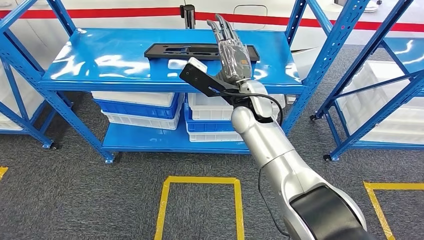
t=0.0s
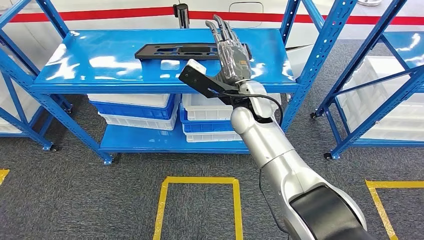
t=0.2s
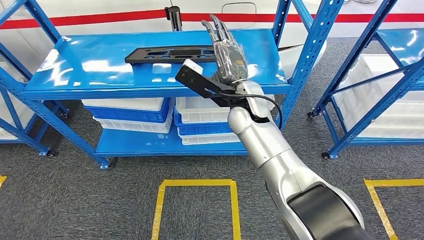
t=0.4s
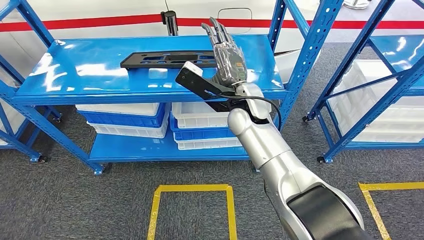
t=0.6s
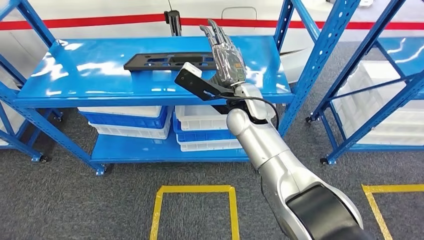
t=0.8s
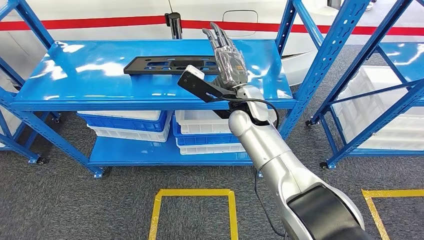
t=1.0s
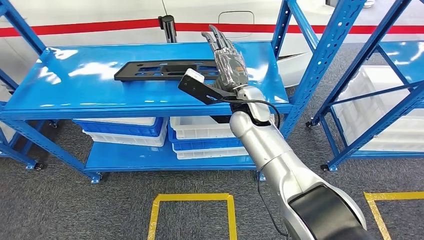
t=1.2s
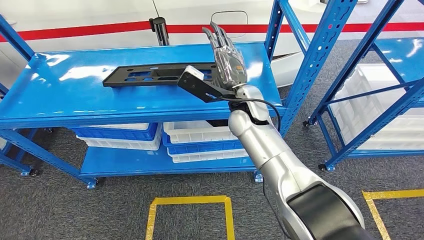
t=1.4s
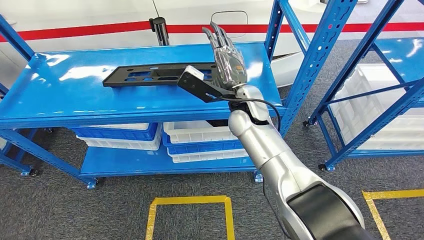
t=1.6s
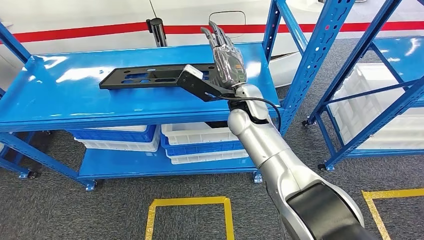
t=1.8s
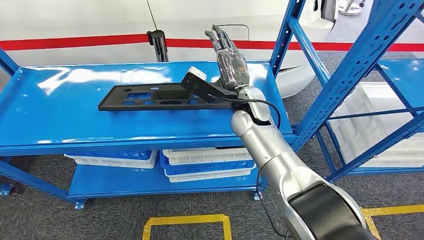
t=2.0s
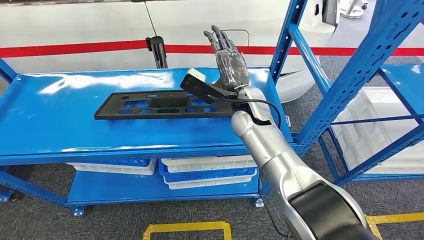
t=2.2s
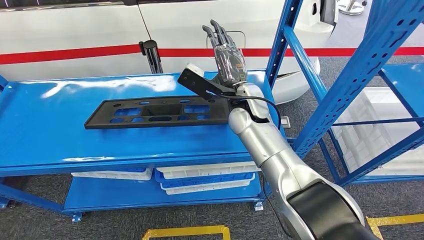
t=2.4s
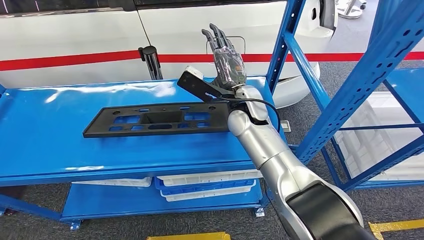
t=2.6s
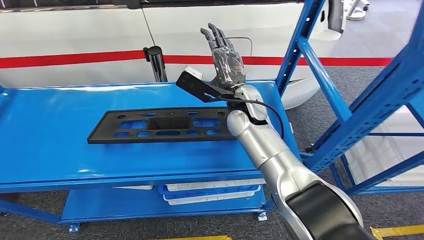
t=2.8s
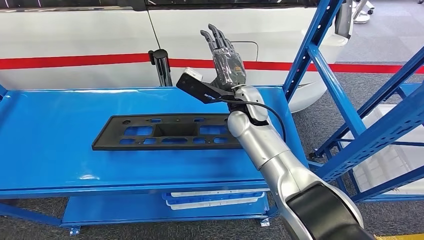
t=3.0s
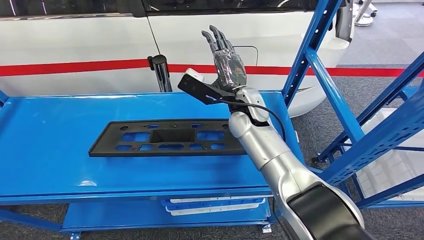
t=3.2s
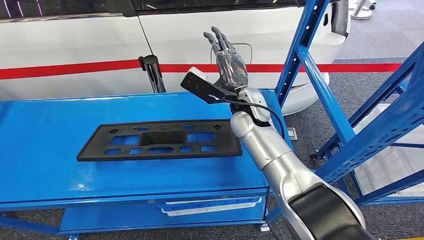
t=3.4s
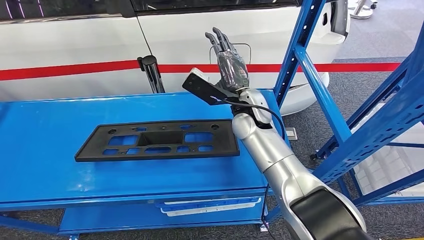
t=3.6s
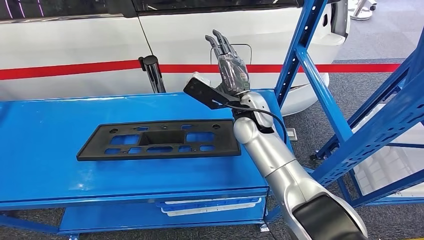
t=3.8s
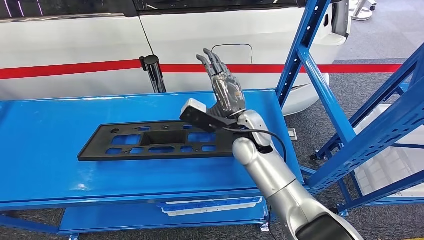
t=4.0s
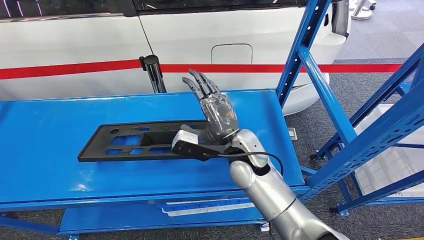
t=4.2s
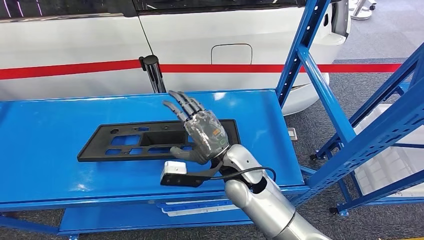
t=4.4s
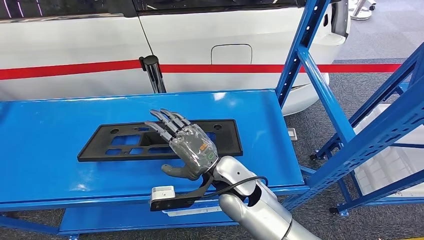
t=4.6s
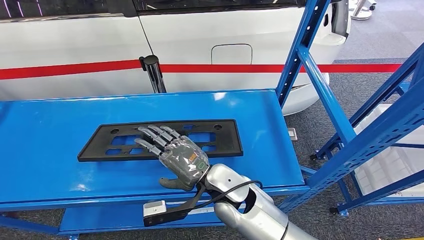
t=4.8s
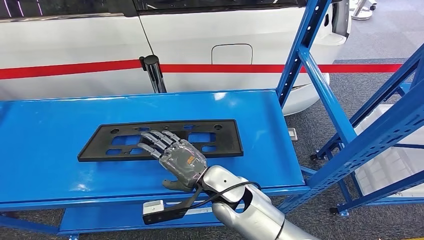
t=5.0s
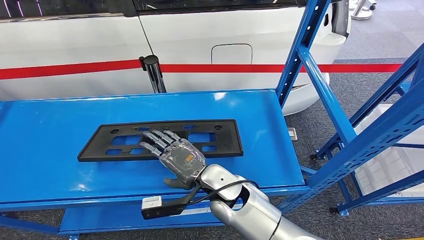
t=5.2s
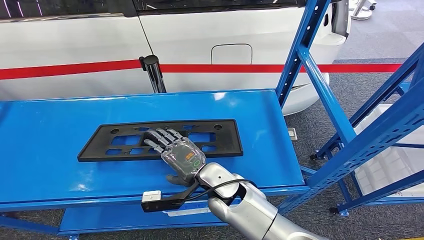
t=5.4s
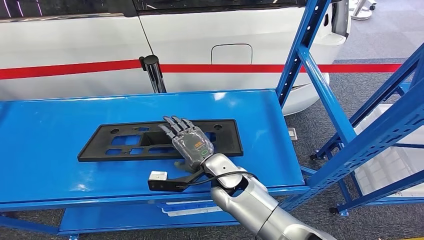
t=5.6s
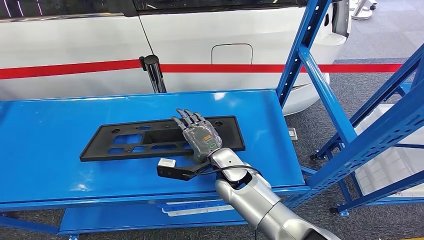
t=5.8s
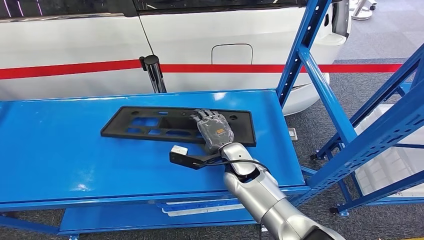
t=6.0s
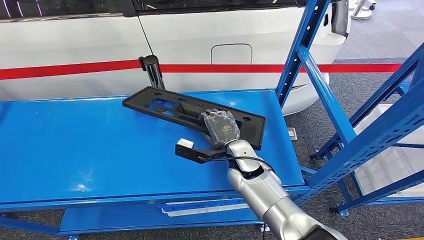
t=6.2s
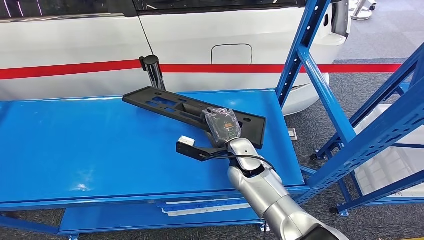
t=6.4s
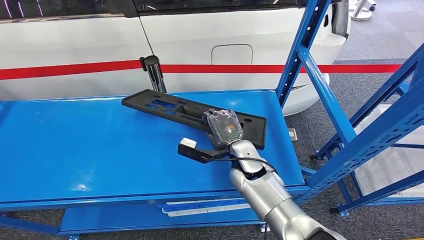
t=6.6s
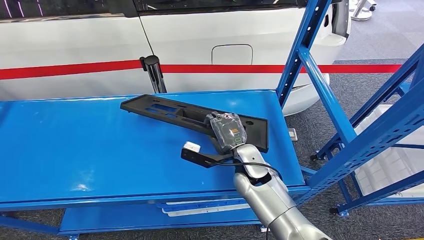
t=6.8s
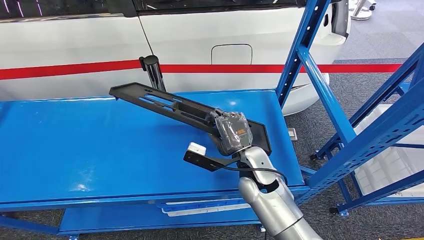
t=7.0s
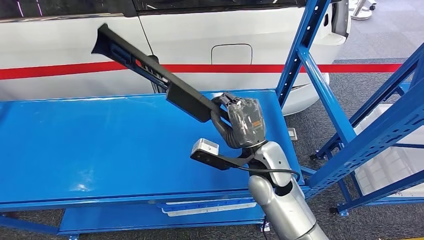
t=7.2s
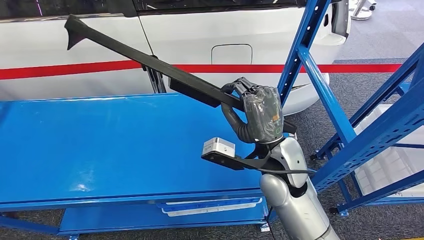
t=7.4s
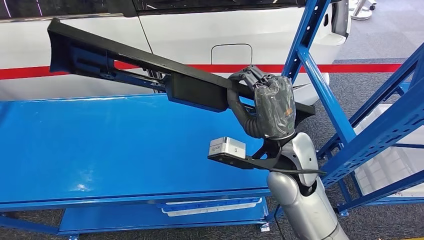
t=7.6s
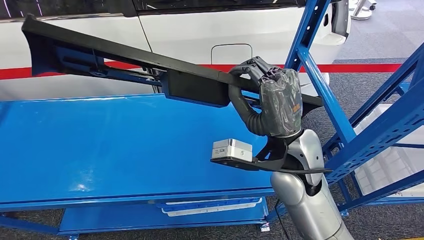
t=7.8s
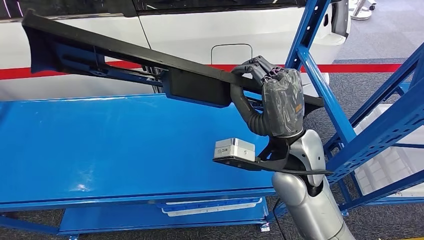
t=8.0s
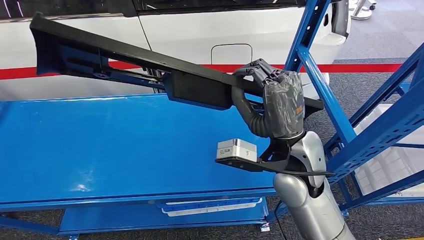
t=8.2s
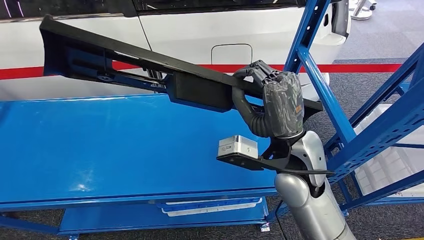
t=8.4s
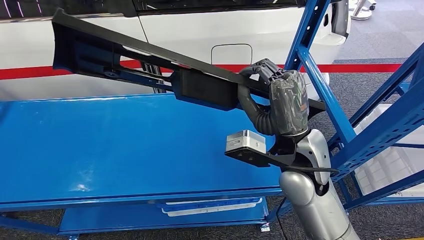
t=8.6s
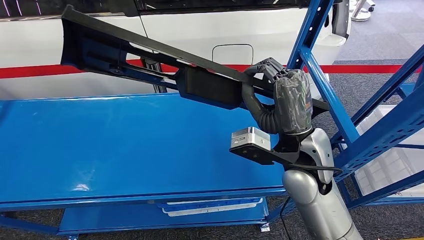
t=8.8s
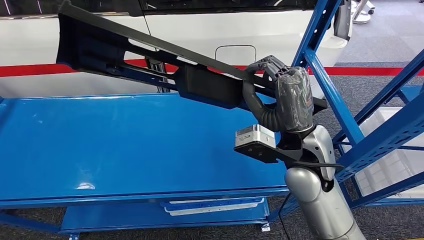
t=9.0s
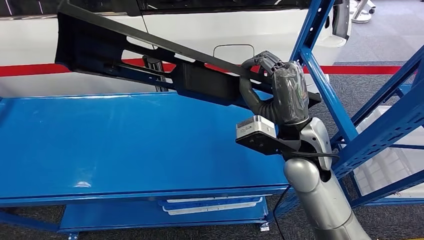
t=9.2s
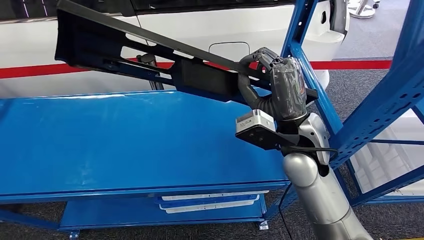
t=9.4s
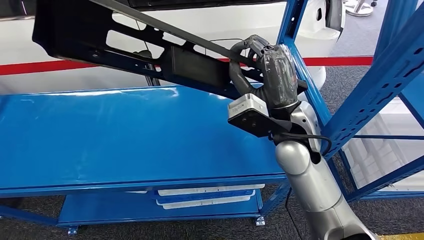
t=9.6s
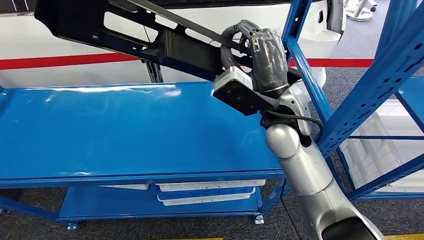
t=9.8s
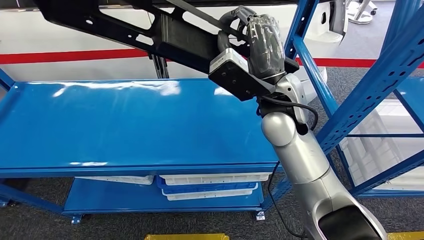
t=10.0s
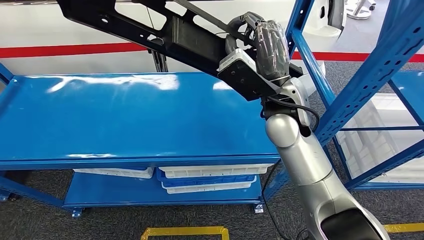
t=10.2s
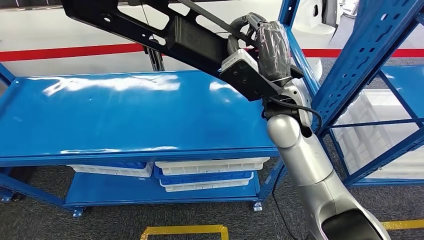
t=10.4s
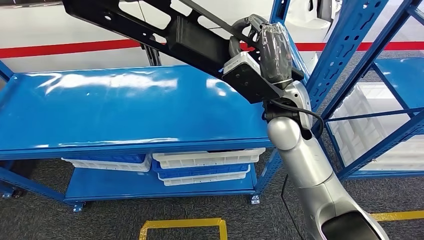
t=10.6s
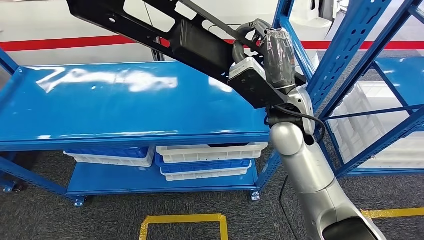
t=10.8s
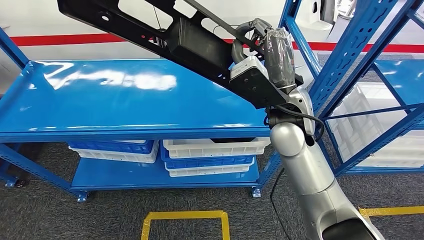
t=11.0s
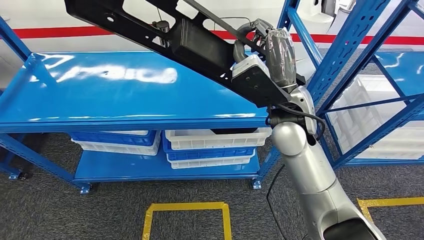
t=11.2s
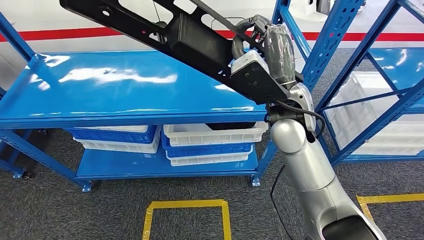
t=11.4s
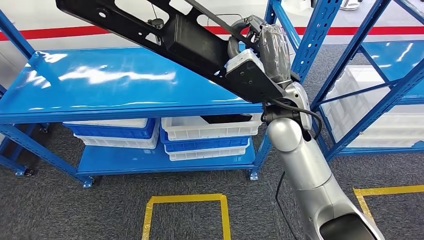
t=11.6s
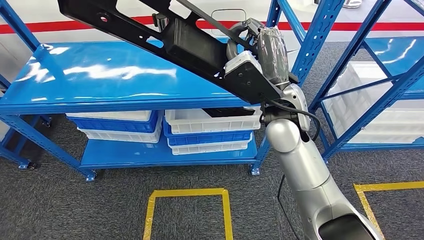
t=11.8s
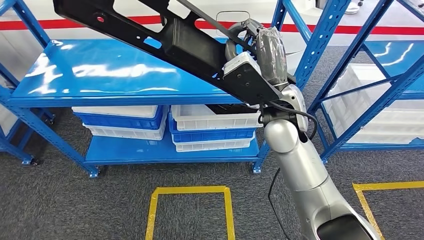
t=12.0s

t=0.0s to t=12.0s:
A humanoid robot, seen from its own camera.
Step, t=0.0s to t=11.4s: Pick up the large material from the shelf.
t=4.4s to t=6.0s: The right hand shifts about 5 cm downward.

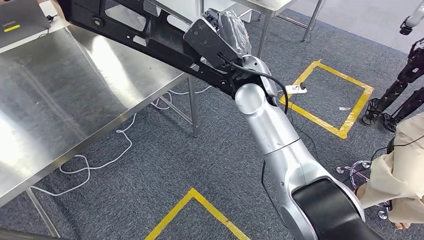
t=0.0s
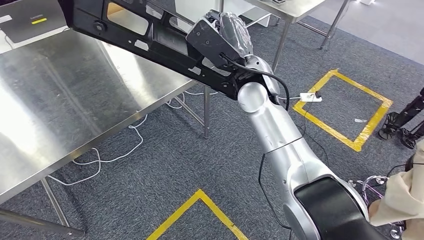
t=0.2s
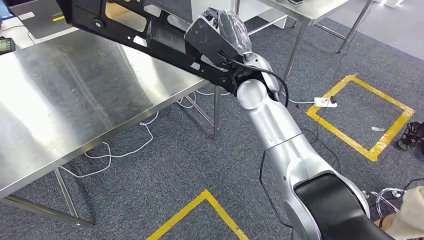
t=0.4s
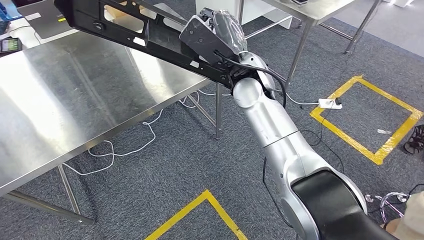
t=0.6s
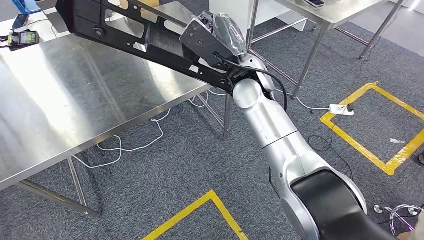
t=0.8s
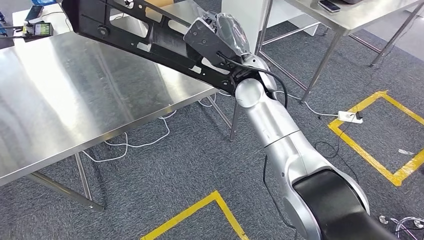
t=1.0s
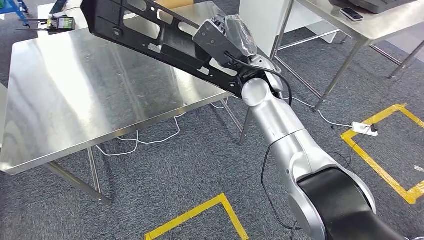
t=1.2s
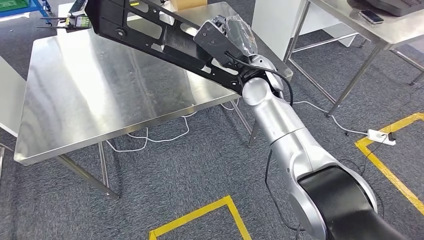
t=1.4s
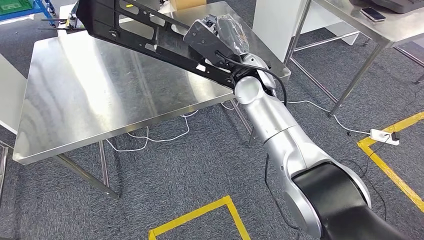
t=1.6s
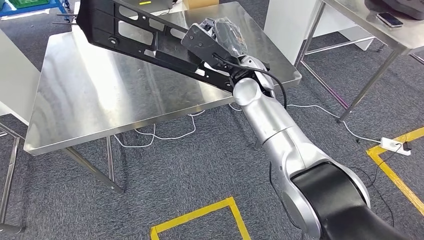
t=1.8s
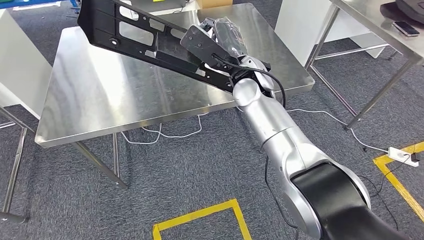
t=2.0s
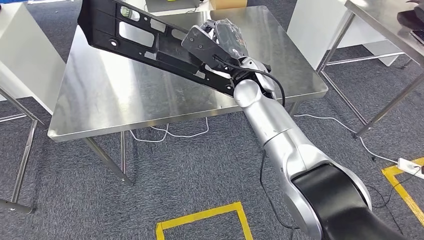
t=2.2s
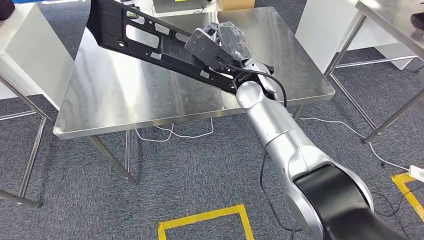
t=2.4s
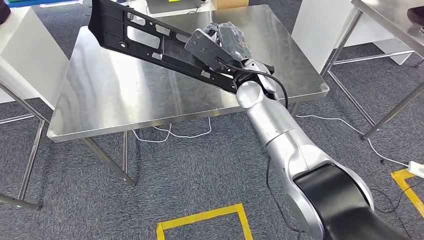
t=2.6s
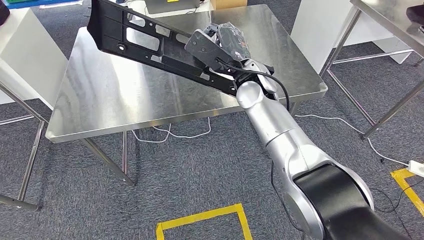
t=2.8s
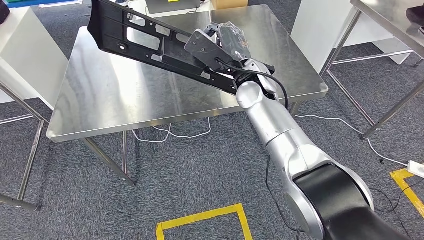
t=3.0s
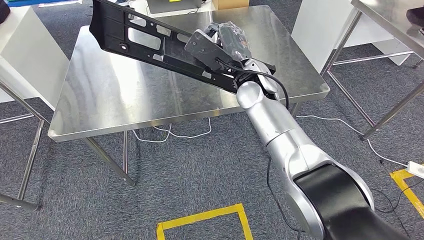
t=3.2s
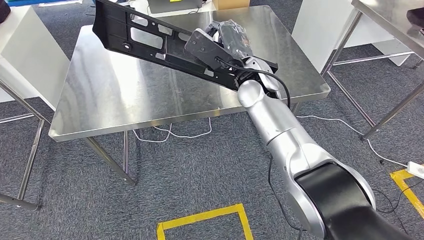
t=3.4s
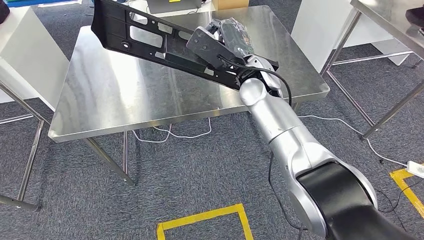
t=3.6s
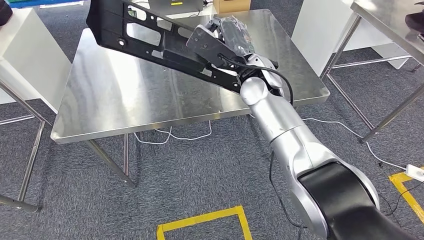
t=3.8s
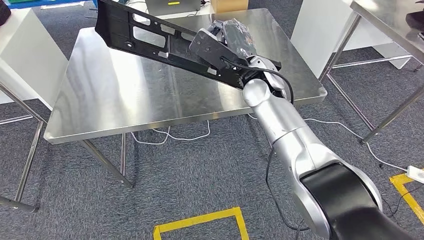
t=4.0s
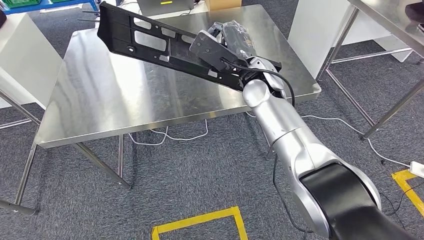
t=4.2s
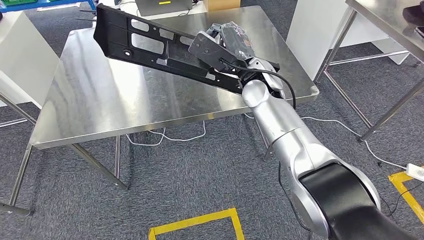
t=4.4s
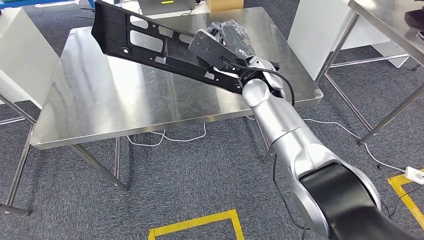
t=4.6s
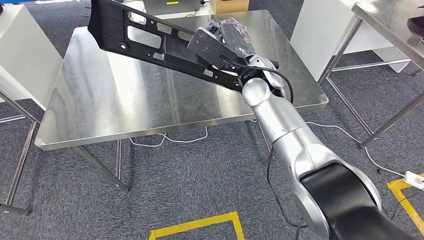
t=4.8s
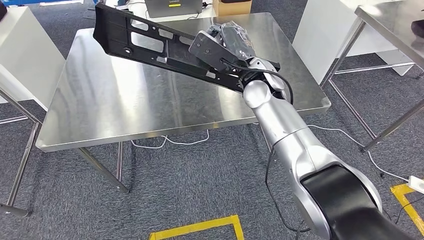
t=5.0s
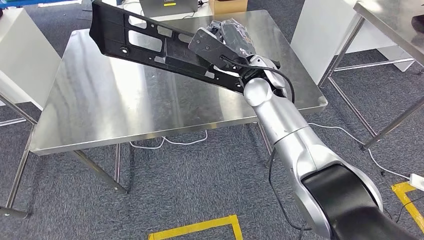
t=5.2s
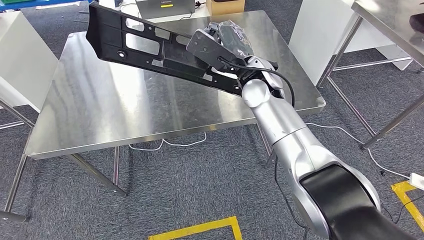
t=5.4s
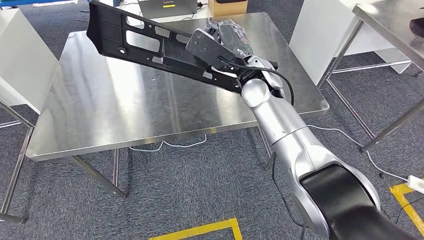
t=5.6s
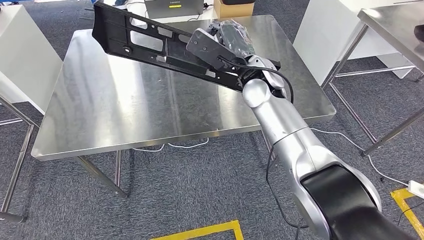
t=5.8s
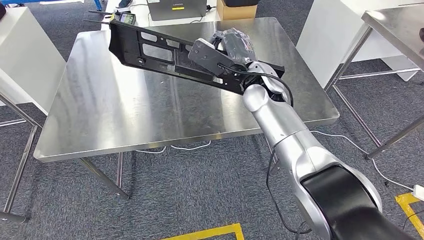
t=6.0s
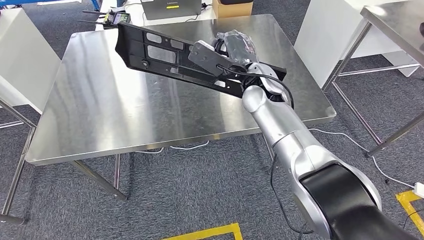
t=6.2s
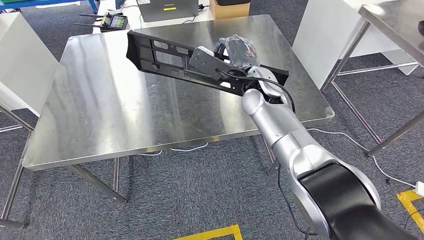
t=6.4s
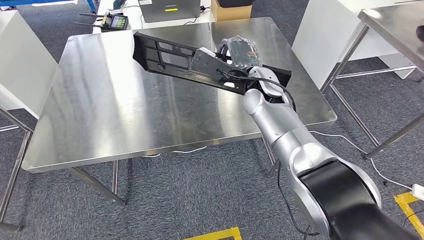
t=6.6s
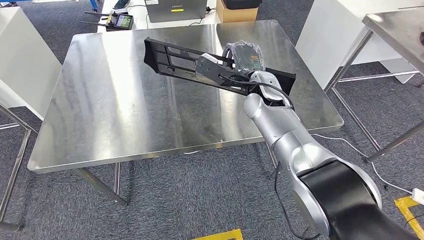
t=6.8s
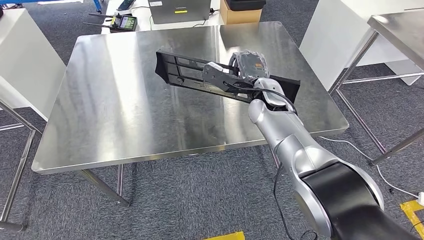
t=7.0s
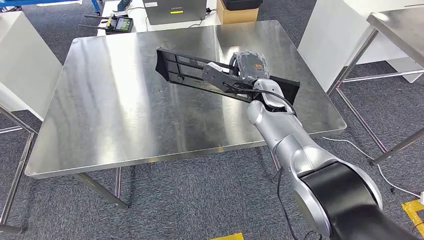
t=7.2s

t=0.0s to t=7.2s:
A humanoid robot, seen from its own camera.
Step, t=0.0s to t=3.6s: Move the large material to the workbench.
